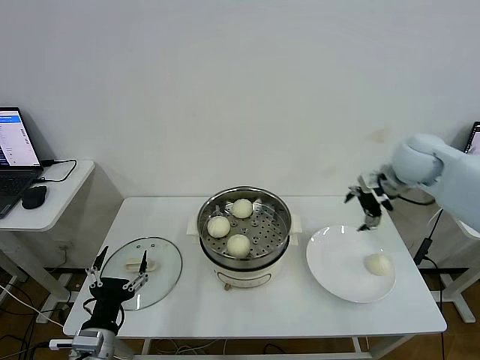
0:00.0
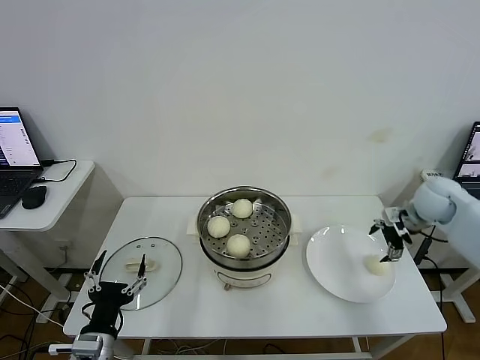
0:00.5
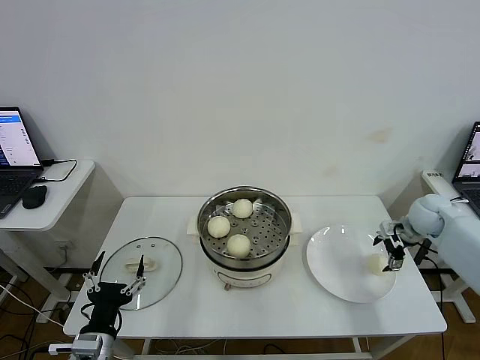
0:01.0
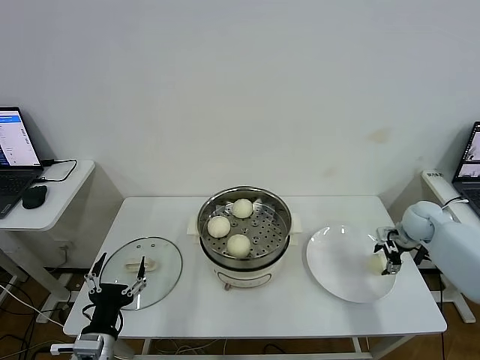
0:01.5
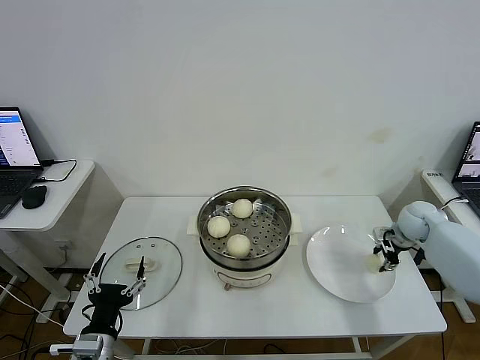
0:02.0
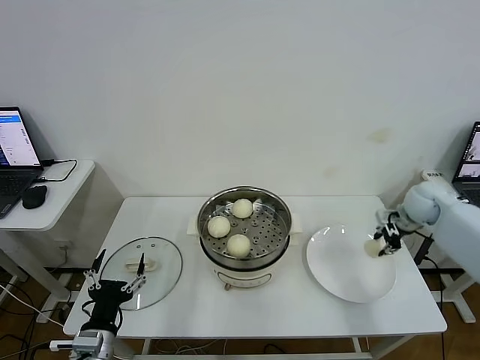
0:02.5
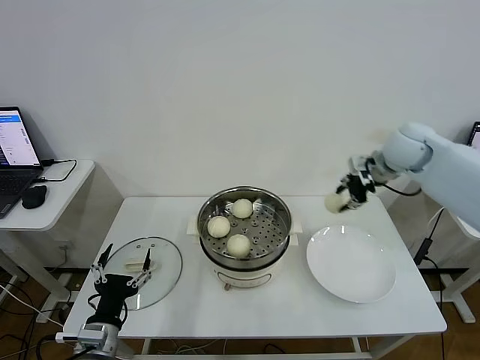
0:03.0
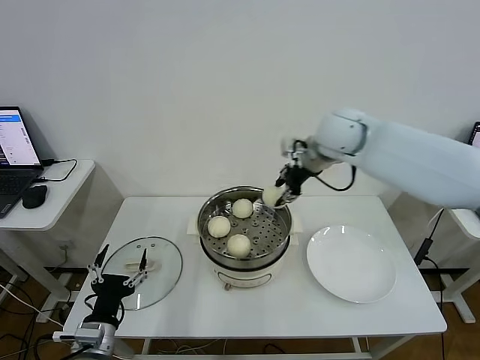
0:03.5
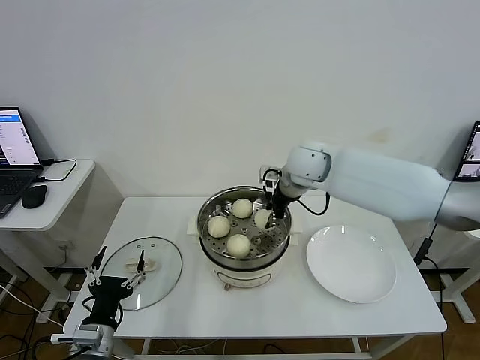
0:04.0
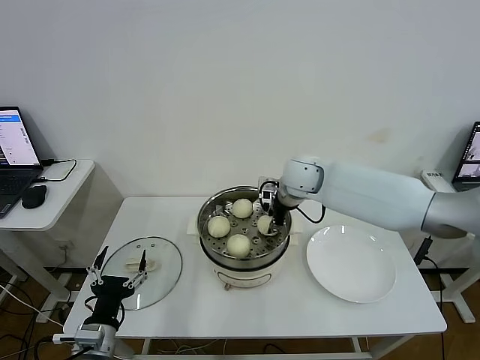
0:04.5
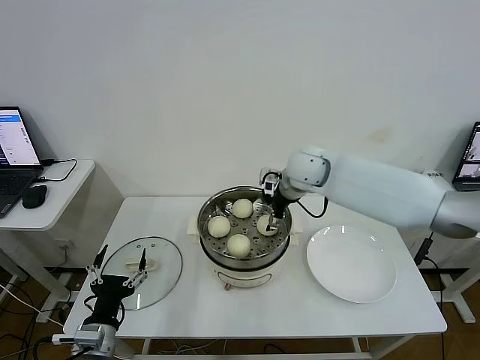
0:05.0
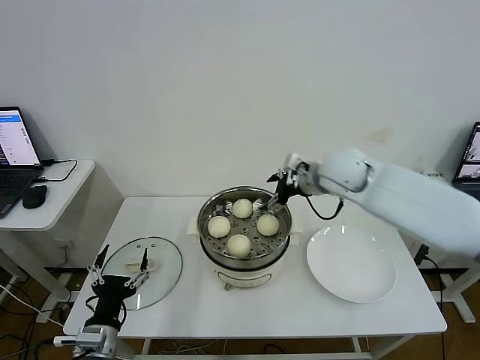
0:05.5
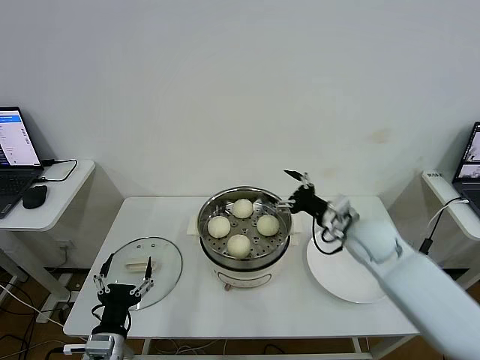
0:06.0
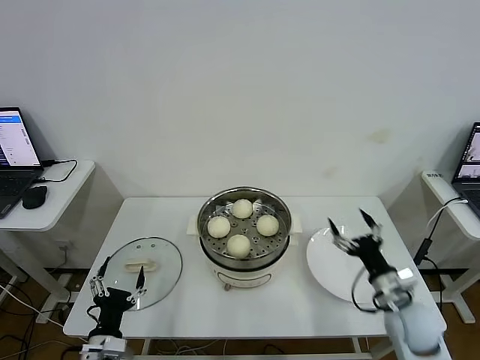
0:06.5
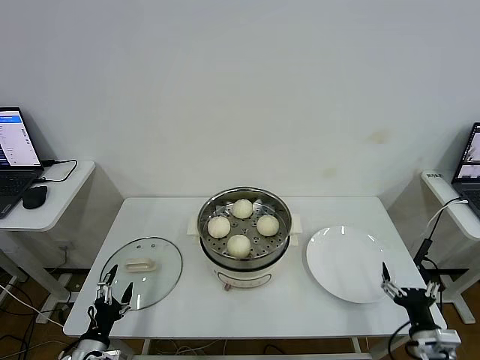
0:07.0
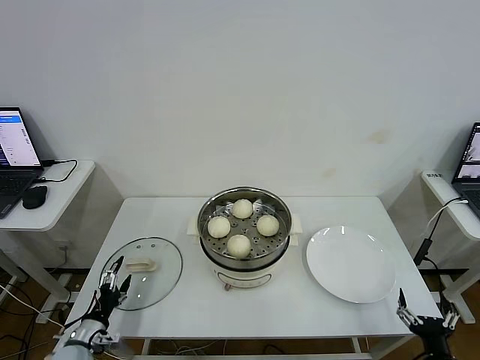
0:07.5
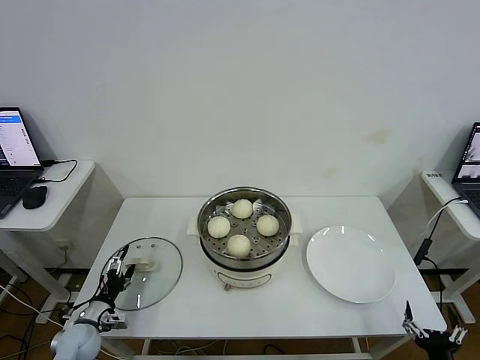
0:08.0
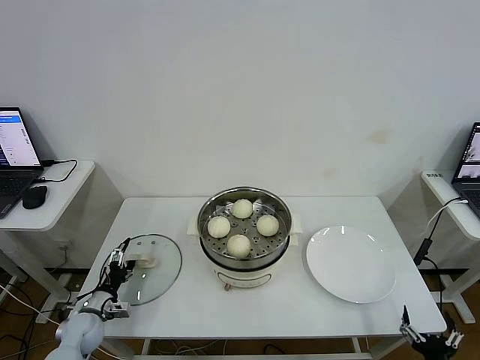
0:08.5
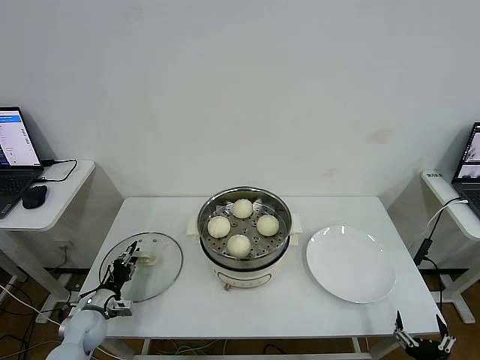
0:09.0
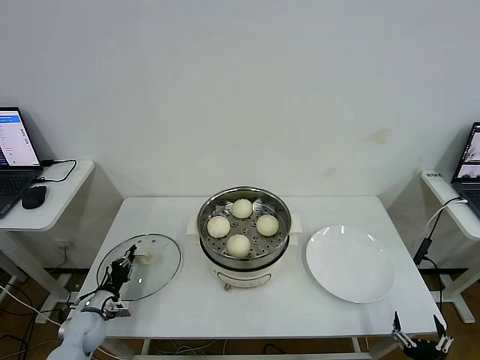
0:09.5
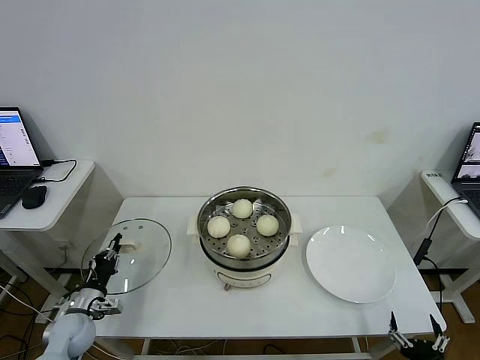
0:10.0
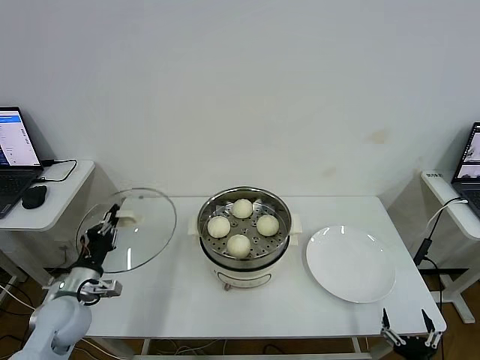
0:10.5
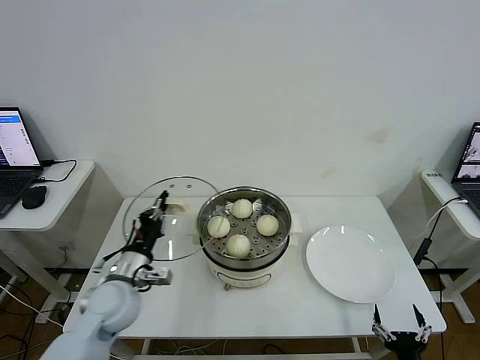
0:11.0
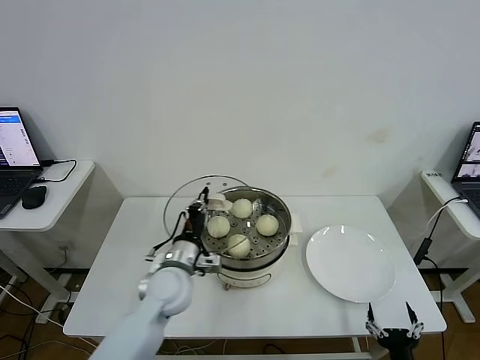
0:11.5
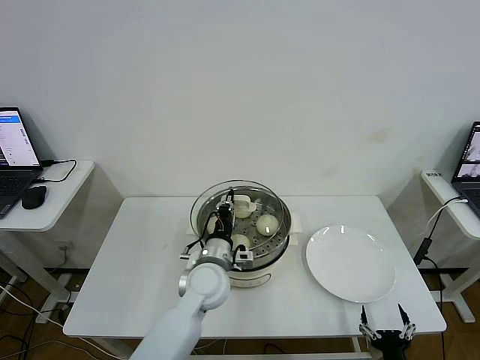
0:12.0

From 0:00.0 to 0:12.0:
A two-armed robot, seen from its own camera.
Step, from 0:00.0 to 0:01.5: Grasp the baozi in the plate with right gripper.
Step, from 0:02.0 to 0:05.0: Place the baozi on the steamer with right gripper.
Step, from 0:05.5 to 0:09.5: Grasp the pot lid with left gripper.
From 0:00.0 to 0:02.0: The right gripper heads downward and to the right, covering some 20 cm, and closes up.
From 0:02.0 to 0:04.0: The right gripper moves to the left and upward, about 35 cm.
From 0:04.0 to 0:06.0: The right gripper travels backward, to the right and downward by roughly 20 cm, and opens up.
From 0:06.0 to 0:08.0: The left gripper heads to the left, downward and forward, covering some 20 cm, while the right gripper travels backward and downward by about 35 cm.
From 0:08.0 to 0:10.0: The left gripper closes up.
From 0:10.0 to 0:12.0: The left gripper moves to the right and upward, about 35 cm; the right gripper shifts by approximately 5 cm.

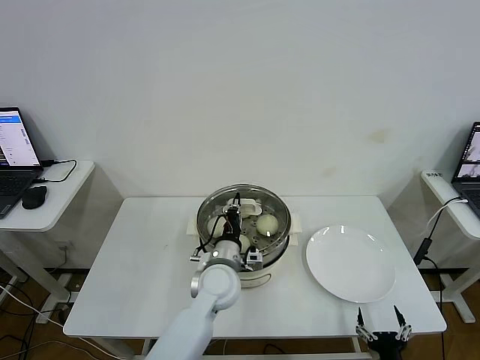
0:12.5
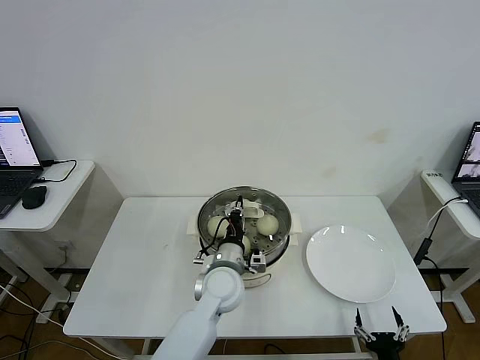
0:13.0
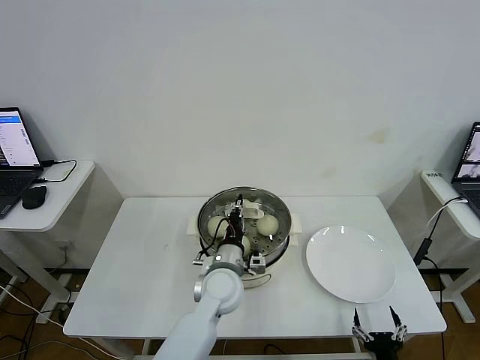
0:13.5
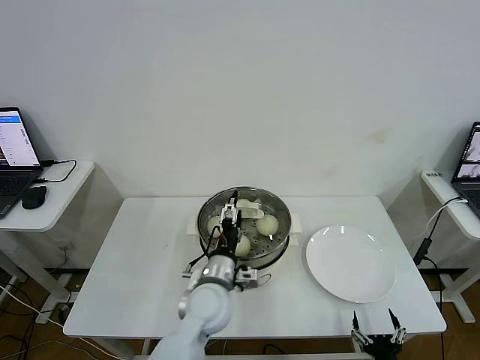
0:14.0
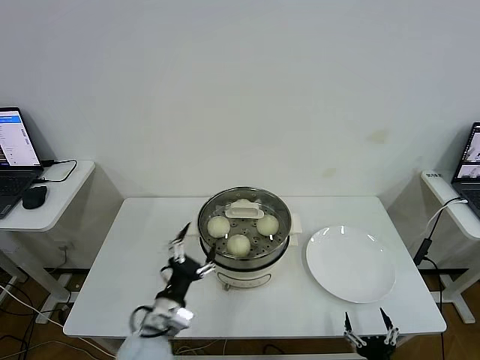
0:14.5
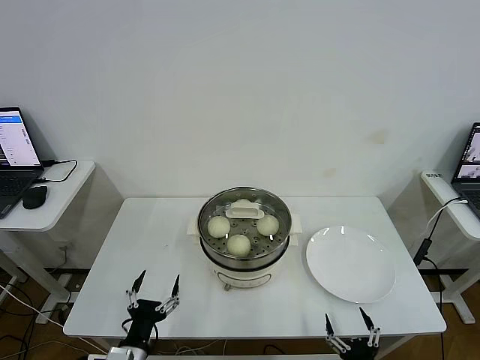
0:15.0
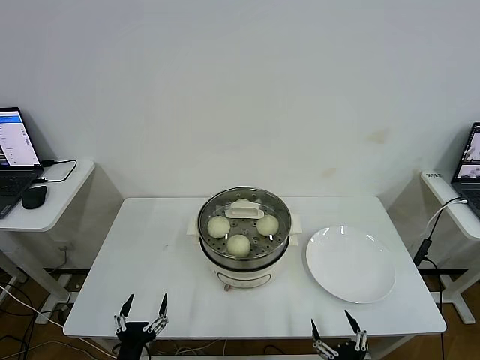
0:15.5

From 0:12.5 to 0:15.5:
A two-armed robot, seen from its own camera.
From 0:12.5 to 0:14.0: The left gripper opens.
From 0:14.0 to 0:15.5: The right gripper shifts roughly 5 cm to the left. The left gripper shifts approximately 30 cm to the left, backward and downward.
